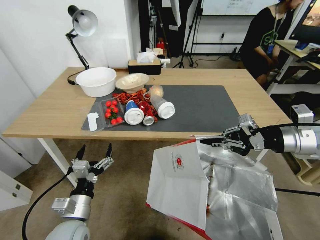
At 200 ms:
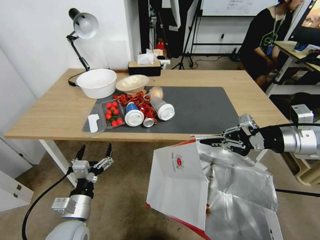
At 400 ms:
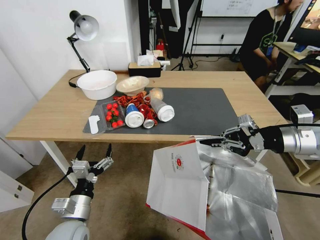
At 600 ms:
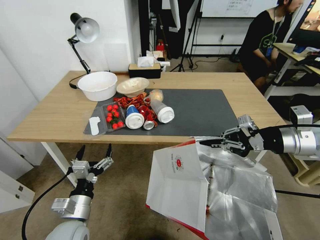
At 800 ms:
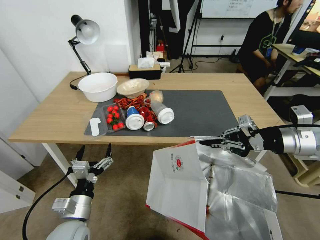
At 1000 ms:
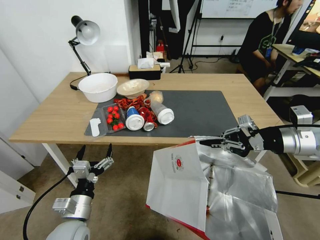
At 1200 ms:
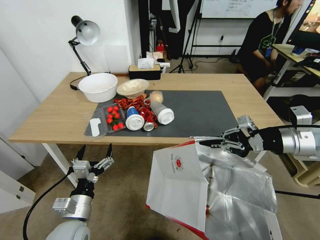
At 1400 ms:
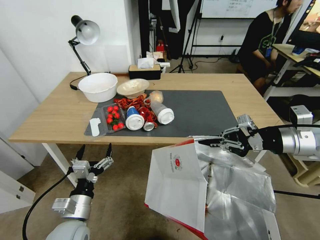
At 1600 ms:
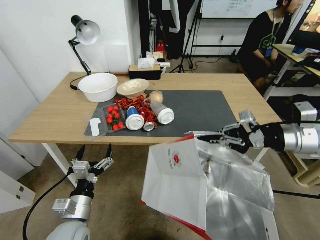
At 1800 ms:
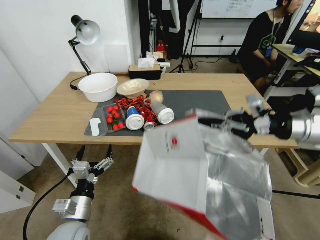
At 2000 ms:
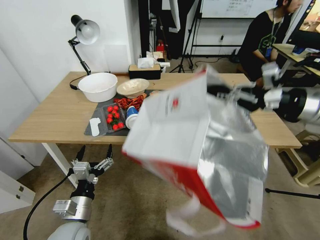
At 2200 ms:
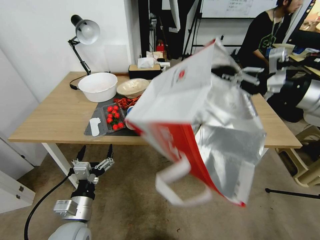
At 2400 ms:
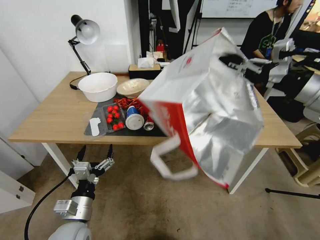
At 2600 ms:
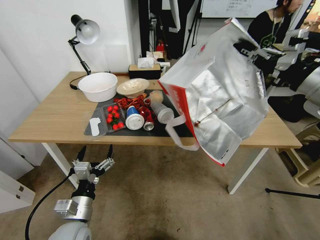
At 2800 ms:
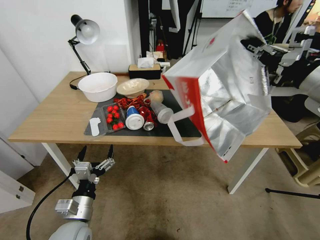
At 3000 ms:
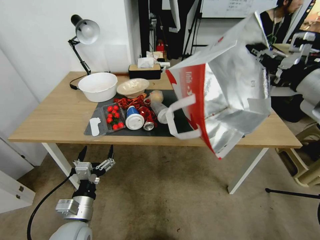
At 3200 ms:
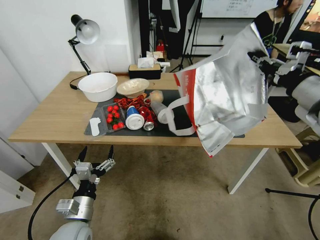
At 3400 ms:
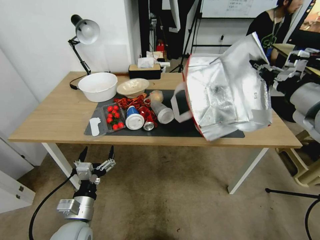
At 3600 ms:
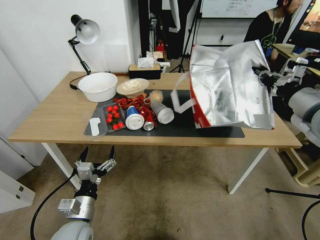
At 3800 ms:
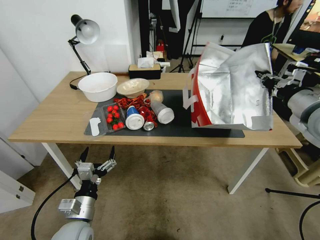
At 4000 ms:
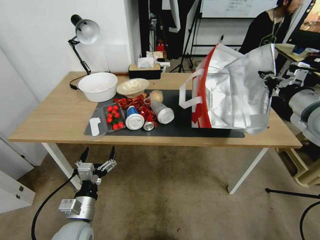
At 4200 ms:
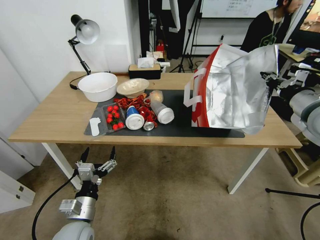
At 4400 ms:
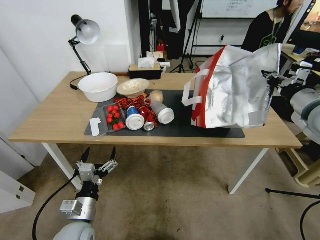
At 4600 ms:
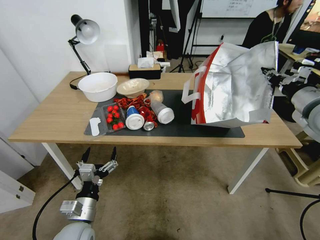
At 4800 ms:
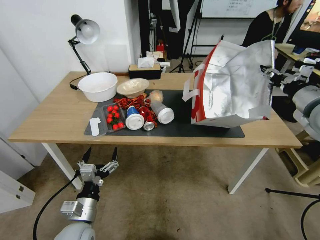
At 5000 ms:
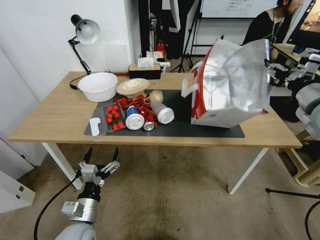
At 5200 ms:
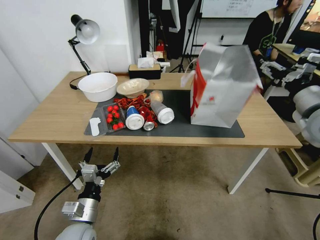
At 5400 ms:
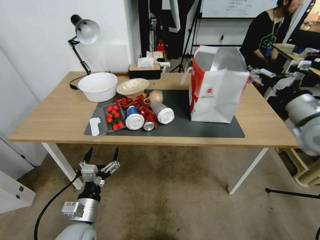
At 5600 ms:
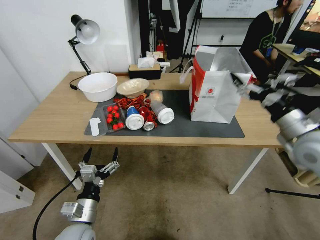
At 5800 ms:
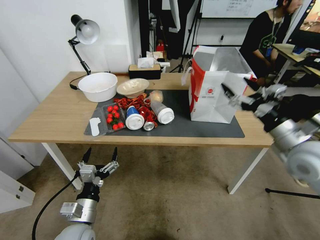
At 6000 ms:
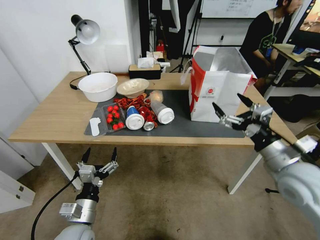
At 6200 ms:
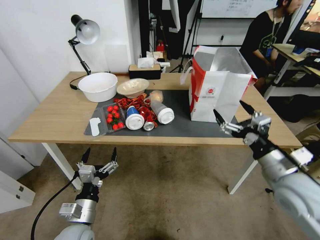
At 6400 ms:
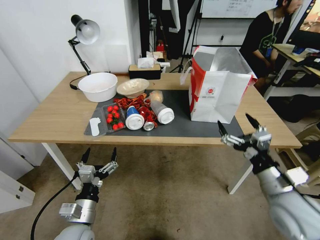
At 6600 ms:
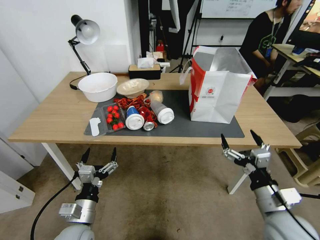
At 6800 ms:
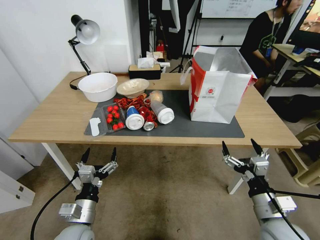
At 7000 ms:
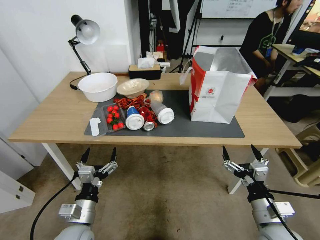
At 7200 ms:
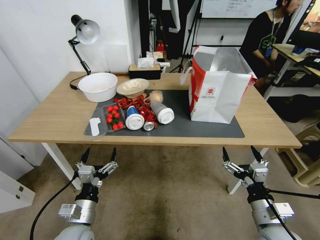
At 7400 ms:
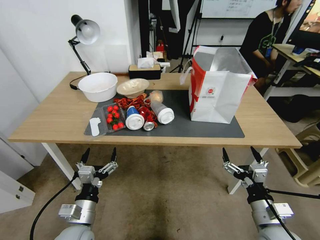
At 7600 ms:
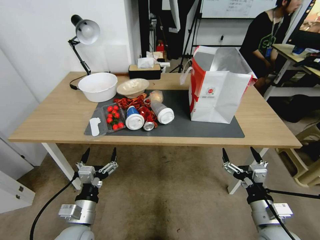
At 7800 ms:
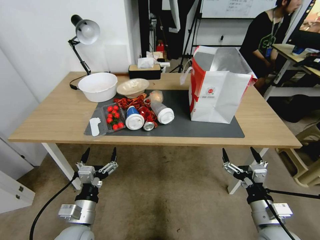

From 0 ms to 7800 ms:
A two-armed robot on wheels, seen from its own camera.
Task of the whole recording: Pick up the food delivery bag from the floor and place it on the table.
From 1600 ms to 3200 ms: The right gripper moves upward, about 5 cm.
From 3200 ms to 4600 ms: The right gripper moves roughly 5 cm.
From 4600 ms to 6200 ms: The right gripper shifts about 20 cm downward, backward and to the left, and opens its fingers.
From 6200 ms to 7800 ms: The right gripper goes roughly 15 cm downward and backward.
